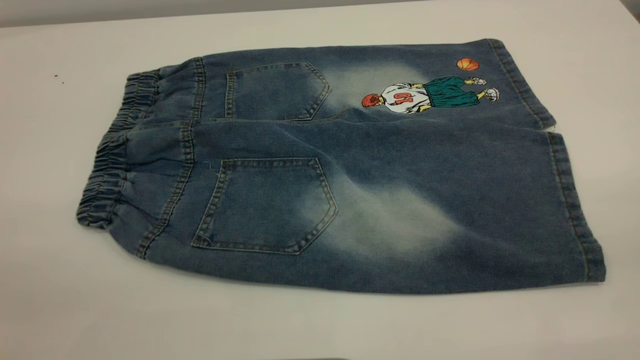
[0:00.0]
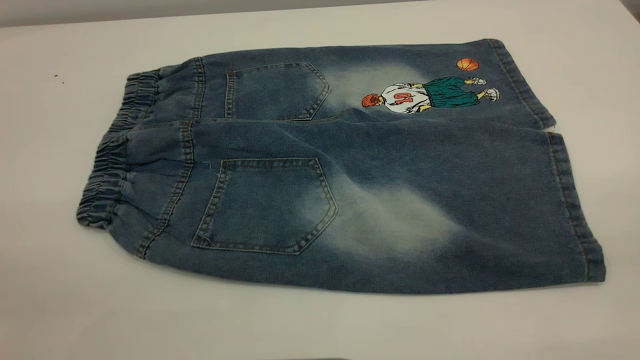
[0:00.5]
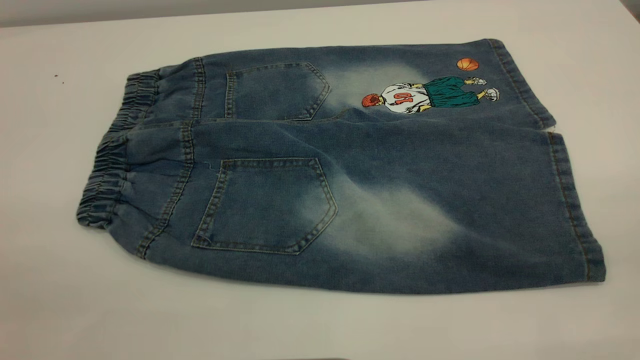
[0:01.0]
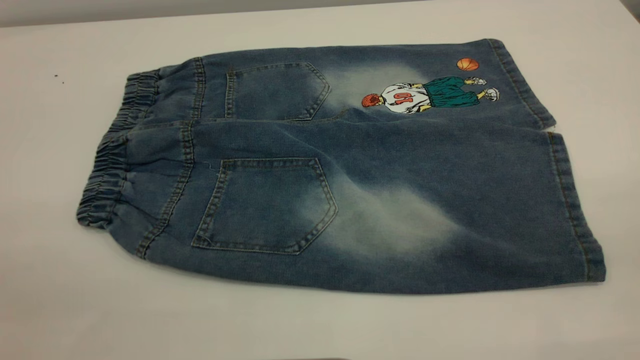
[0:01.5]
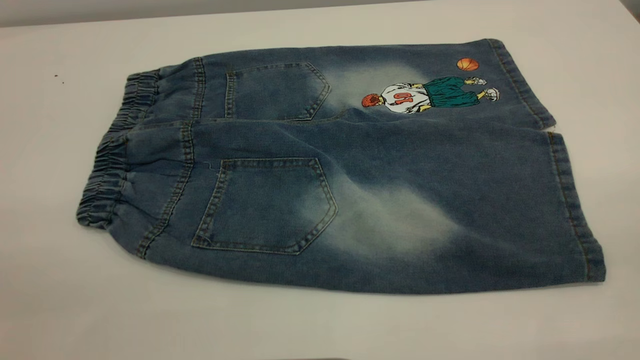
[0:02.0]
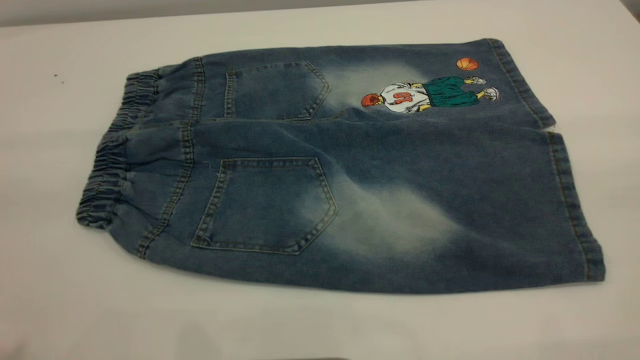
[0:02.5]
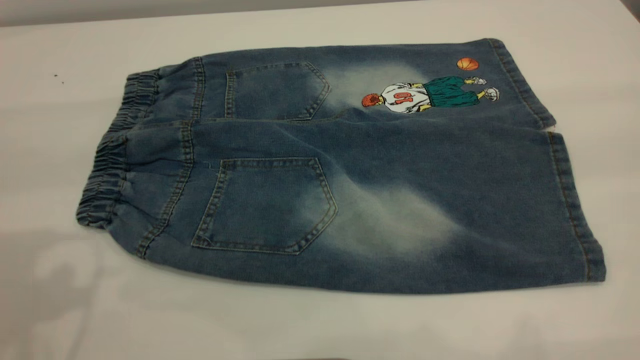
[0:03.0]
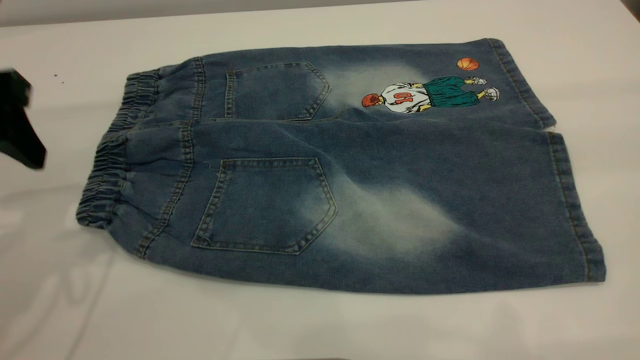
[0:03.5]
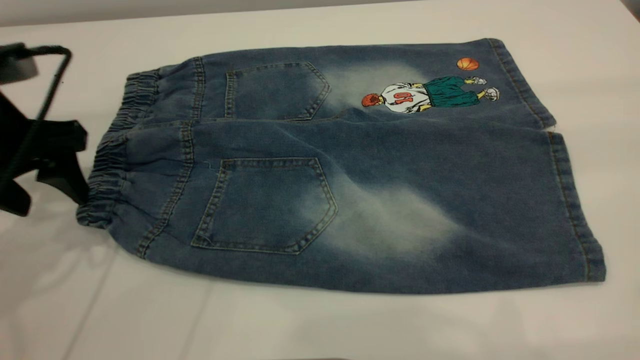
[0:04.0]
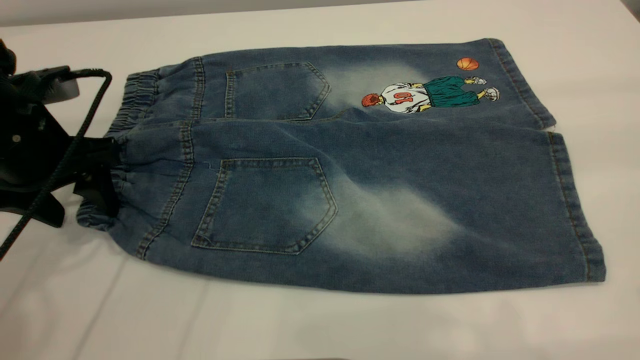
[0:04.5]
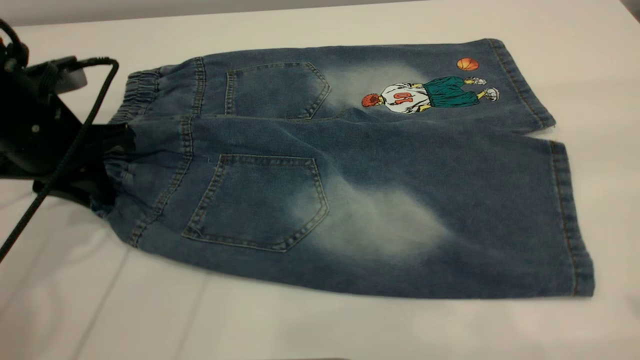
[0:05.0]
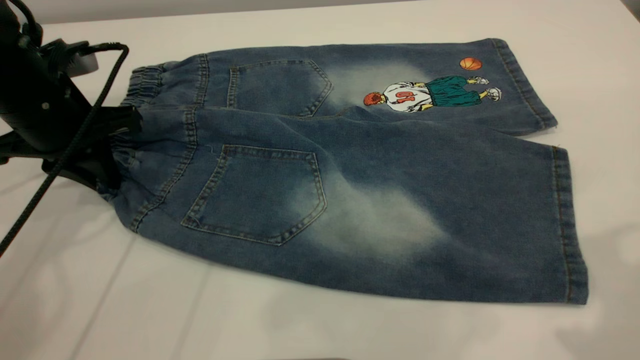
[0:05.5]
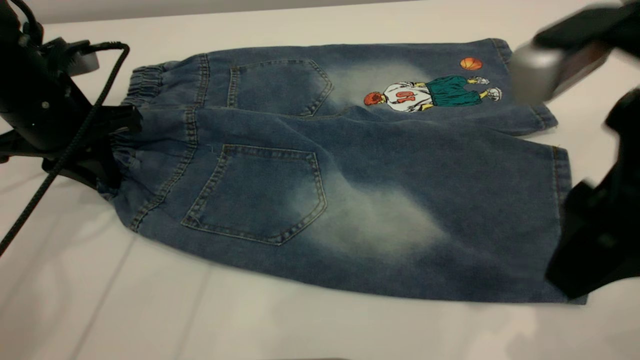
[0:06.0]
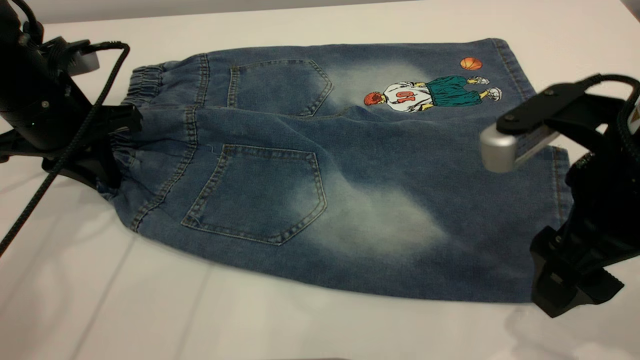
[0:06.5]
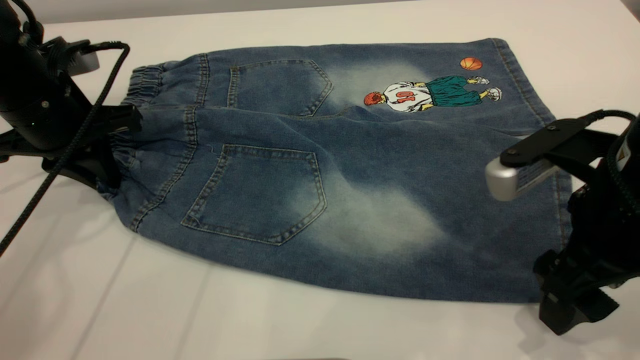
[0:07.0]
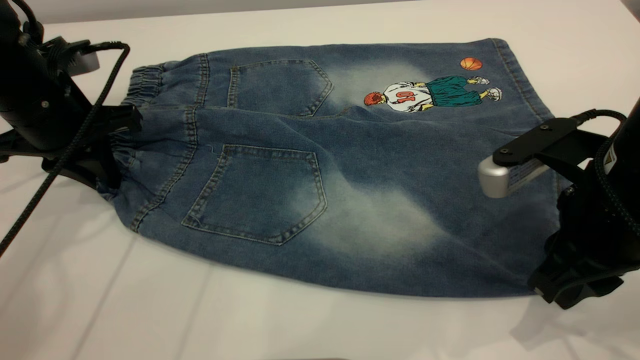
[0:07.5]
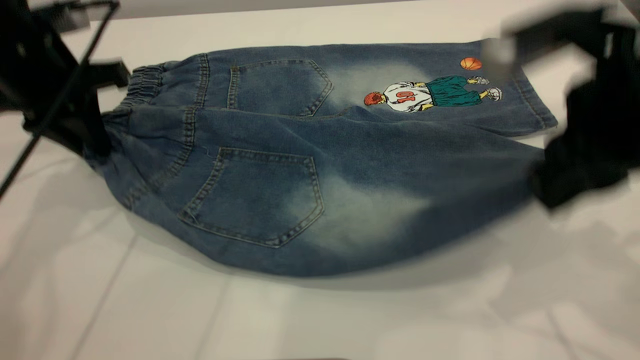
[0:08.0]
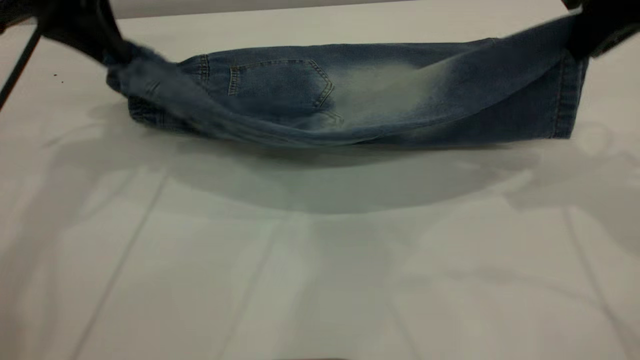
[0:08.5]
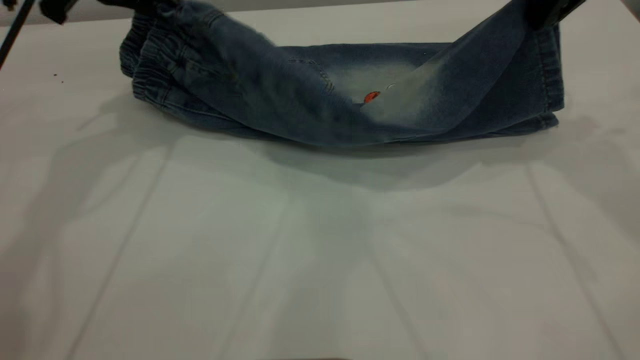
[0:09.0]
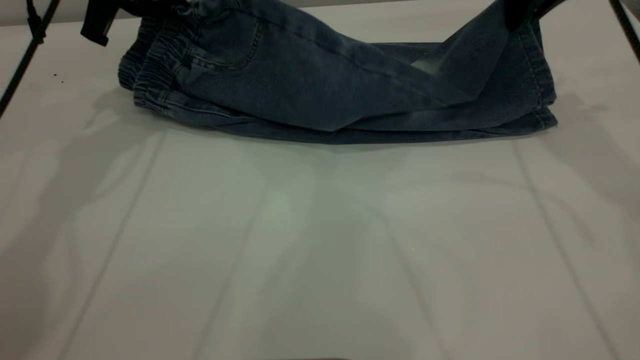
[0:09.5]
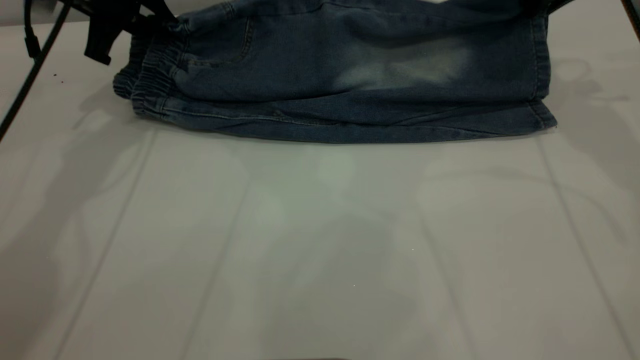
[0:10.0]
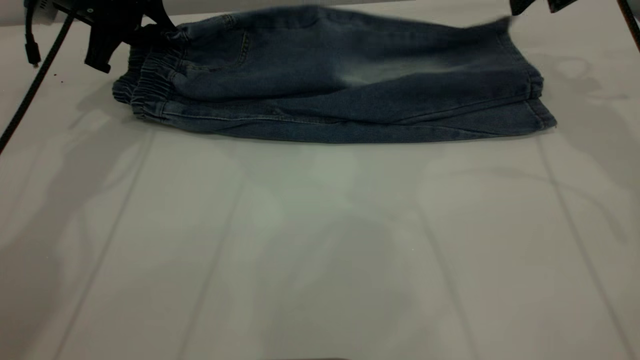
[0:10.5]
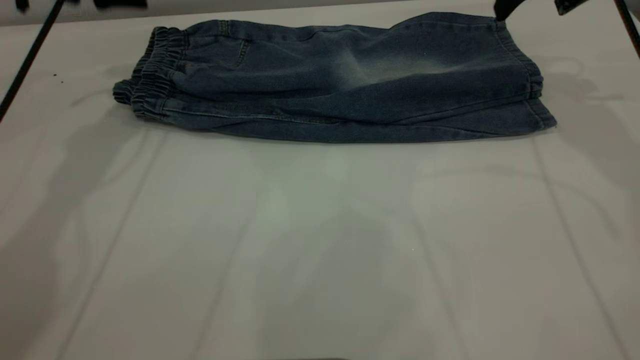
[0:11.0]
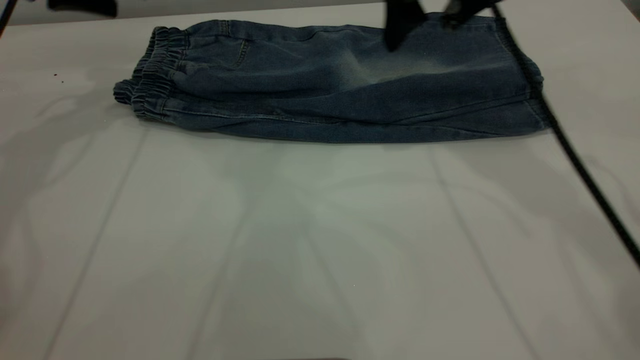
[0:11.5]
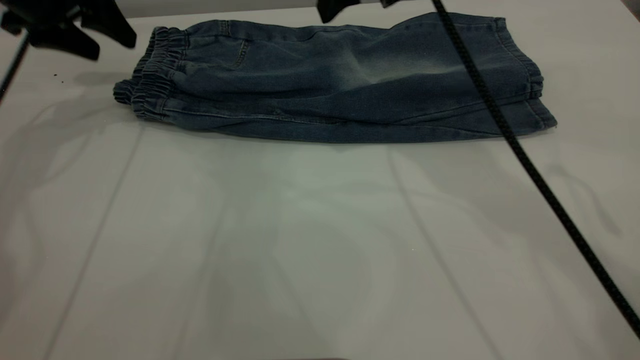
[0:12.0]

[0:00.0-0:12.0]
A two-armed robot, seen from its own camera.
Step, 0:00.0 to 0:11.0: Fold the bottom of the pants upward.
0:00.0 to 0:02.0: Both grippers stay about where they are.
0:02.0 to 0:04.0: The left gripper travels forward and downward by roughly 35 cm.
0:04.0 to 0:06.0: The right gripper is displaced downward, to the left and forward by some 20 cm. Meanwhile the left gripper ends up approximately 5 cm from where it was, and closes.
0:06.0 to 0:08.0: The left gripper shifts some 5 cm upward, while the right gripper reaches roughly 10 cm downward, then returns, and closes.
0:08.0 to 0:10.0: The left gripper goes some 10 cm forward. The right gripper moves forward, about 20 cm.
0:10.0 to 0:12.0: The left gripper heads to the left, covering about 5 cm, and opens up. The right gripper is displaced to the left by some 15 cm, and opens.

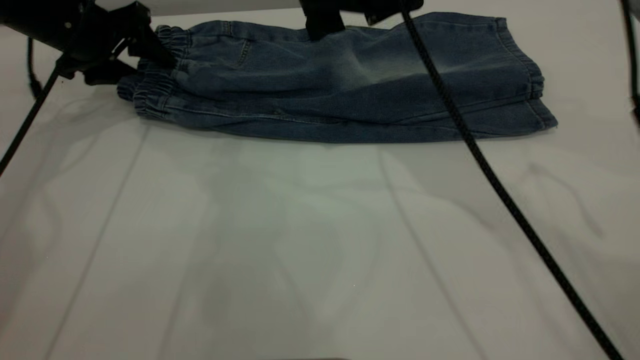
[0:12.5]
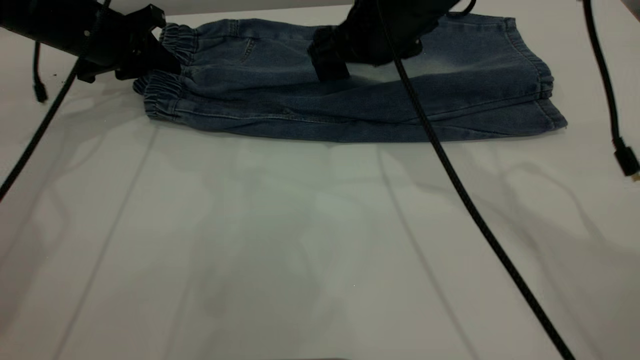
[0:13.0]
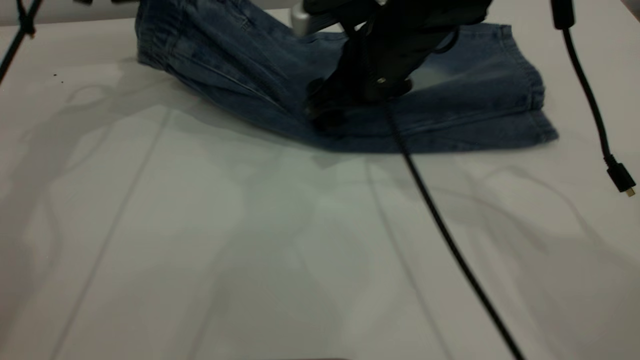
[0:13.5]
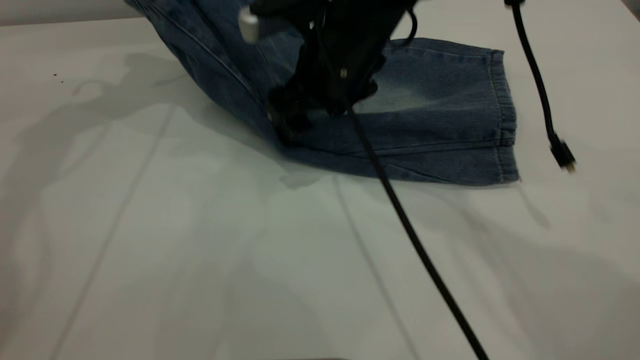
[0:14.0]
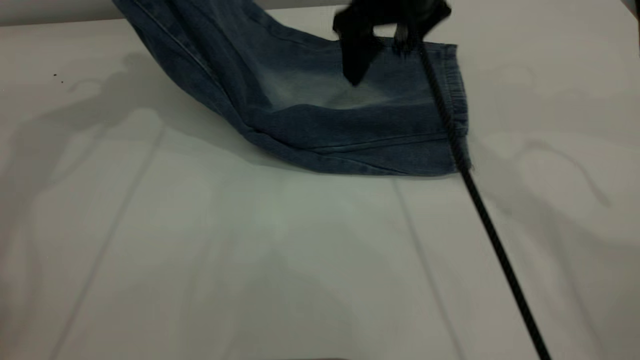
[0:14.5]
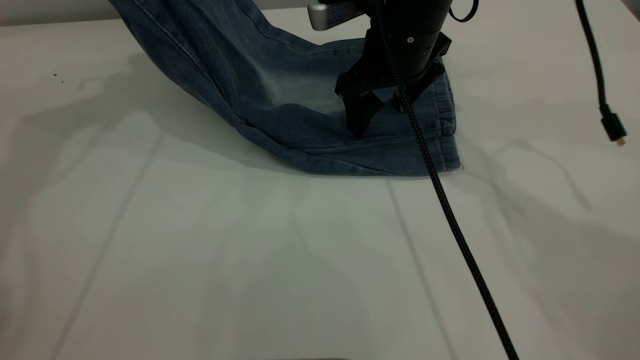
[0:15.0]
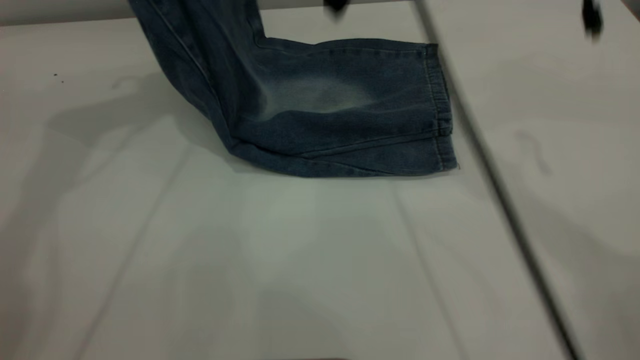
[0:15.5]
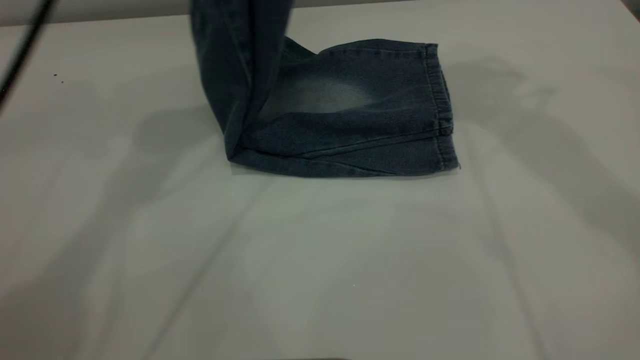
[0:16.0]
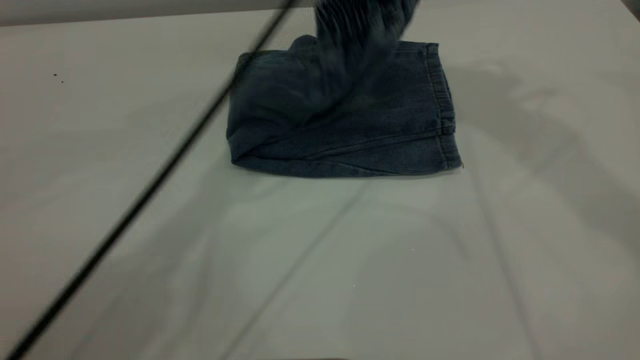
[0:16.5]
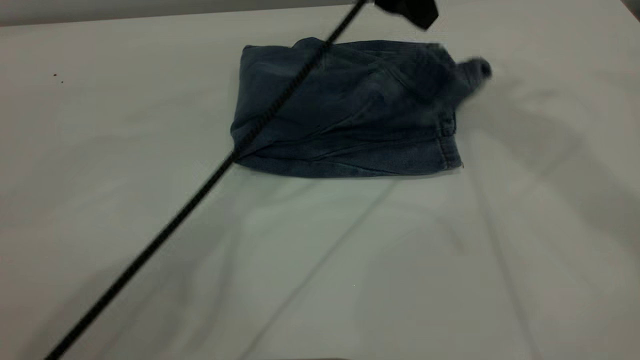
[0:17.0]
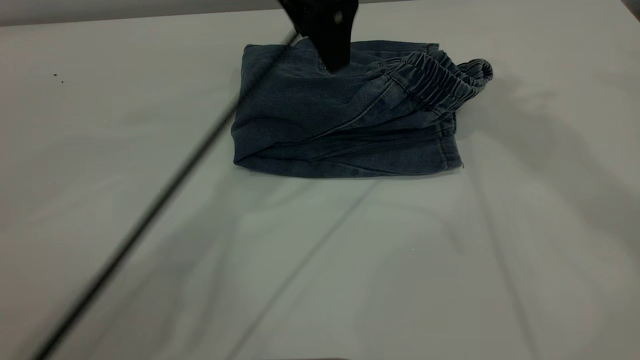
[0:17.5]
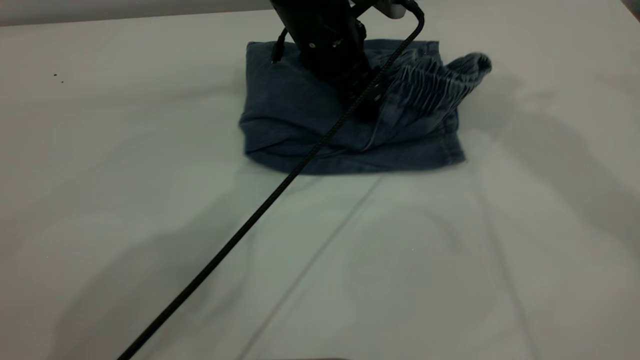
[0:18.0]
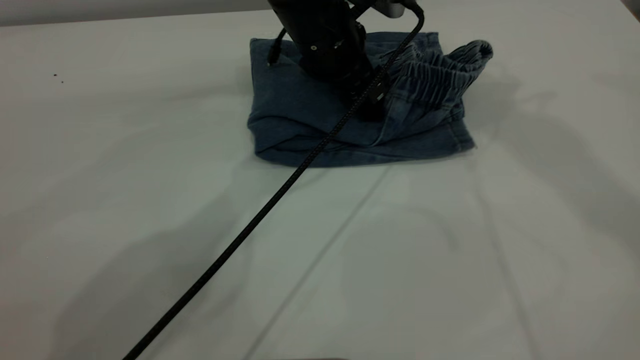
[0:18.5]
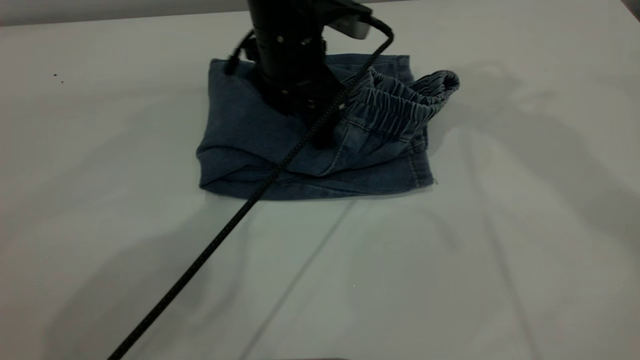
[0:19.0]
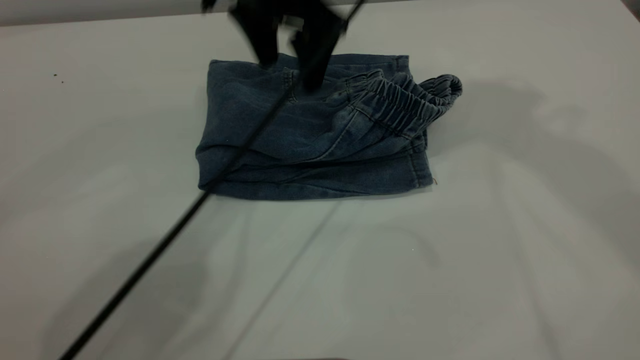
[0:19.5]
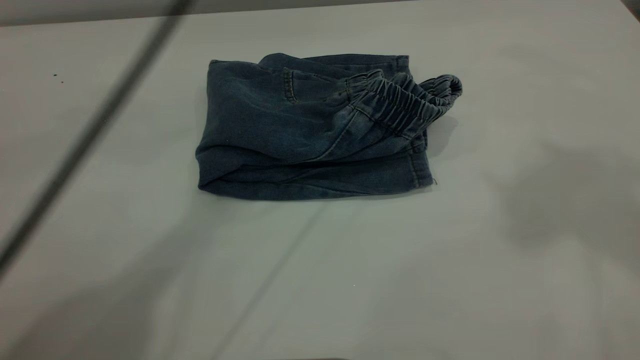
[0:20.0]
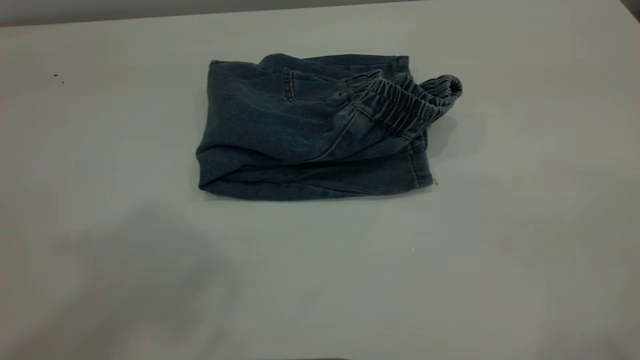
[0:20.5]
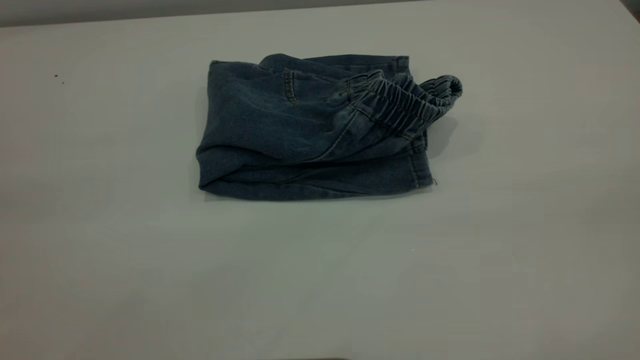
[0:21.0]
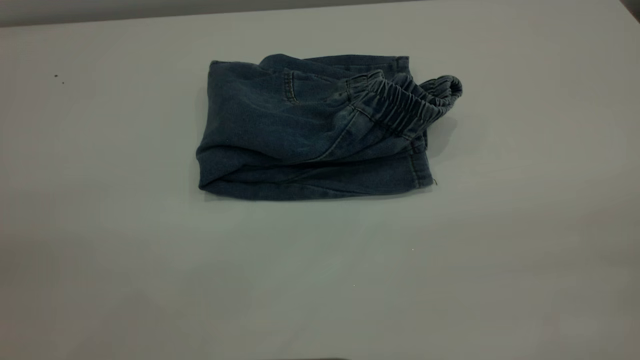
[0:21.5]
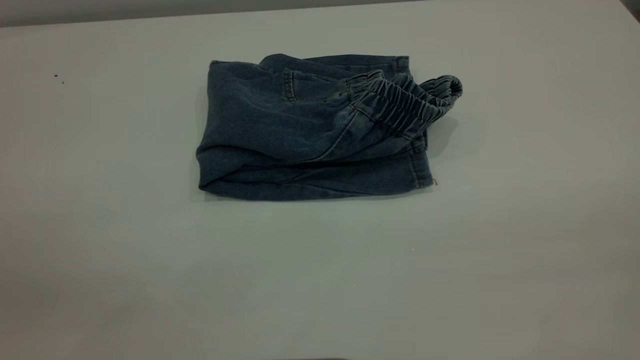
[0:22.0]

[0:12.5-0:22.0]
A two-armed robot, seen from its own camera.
Step, 0:12.5 to 0:17.0: Fold the pants from left to right.
0:12.5 to 0:14.5: The right gripper travels downward and back again, about 10 cm each way; the left gripper goes some 20 cm upward, and closes its fingers.
0:14.5 to 0:16.5: The left gripper moves to the right, about 25 cm; the right gripper goes about 25 cm upward.
0:16.5 to 0:18.0: The left gripper heads downward, covering roughly 10 cm, and opens its fingers.
0:18.0 to 0:20.0: The right gripper goes about 20 cm backward and upward. Meanwhile the left gripper is displaced upward by about 25 cm.
0:20.0 to 0:22.0: The left gripper travels backward and to the left by about 40 cm.
